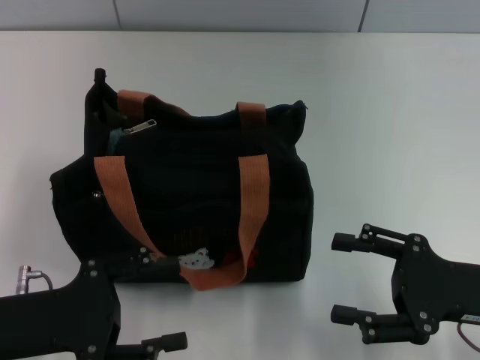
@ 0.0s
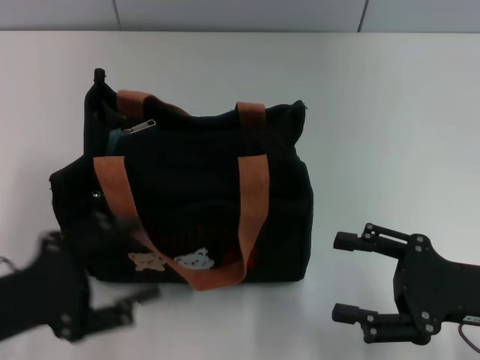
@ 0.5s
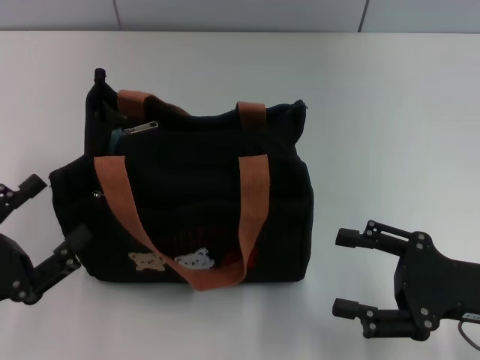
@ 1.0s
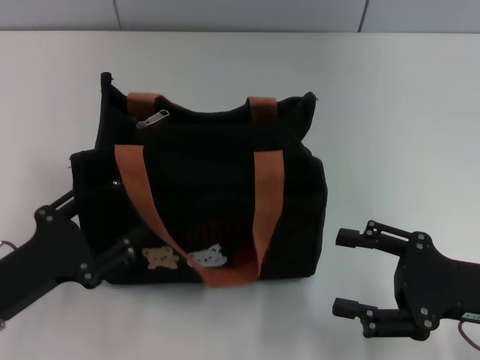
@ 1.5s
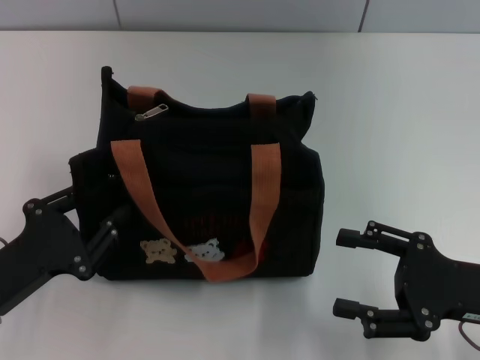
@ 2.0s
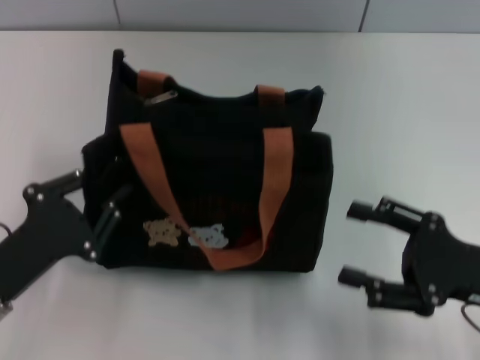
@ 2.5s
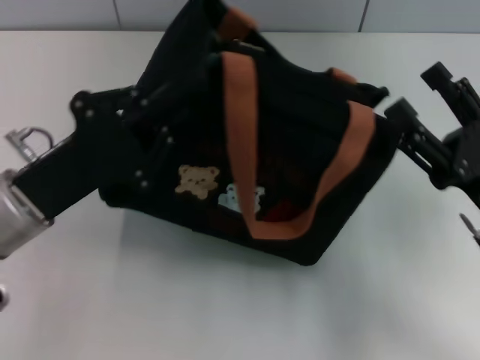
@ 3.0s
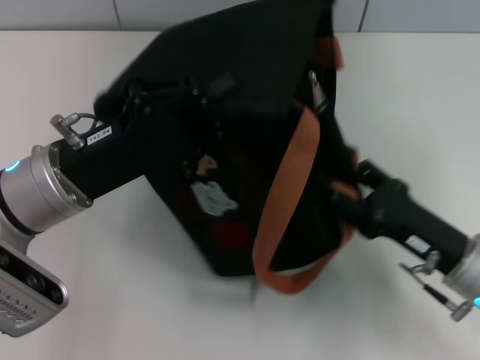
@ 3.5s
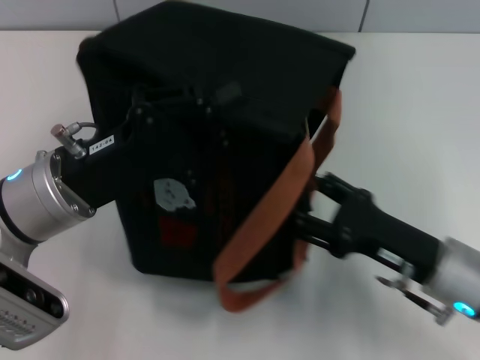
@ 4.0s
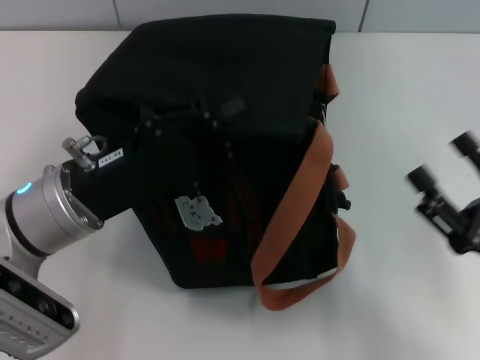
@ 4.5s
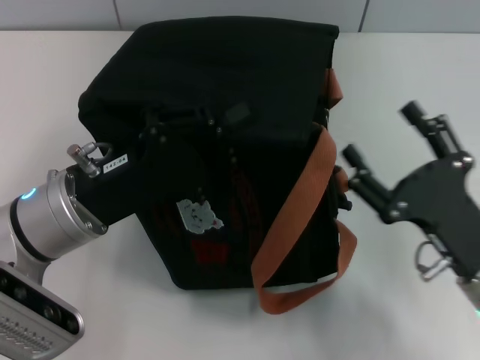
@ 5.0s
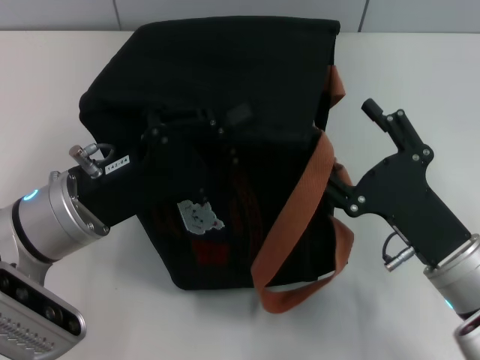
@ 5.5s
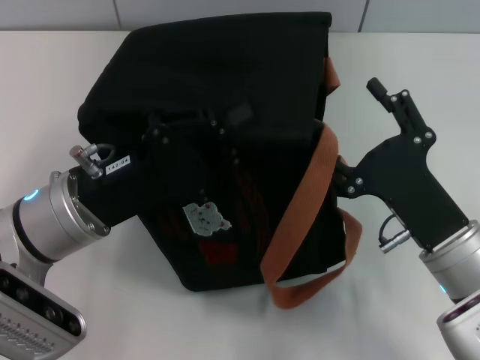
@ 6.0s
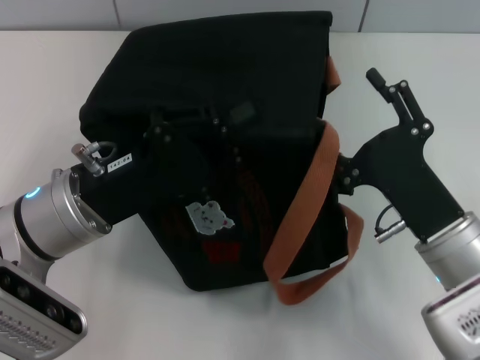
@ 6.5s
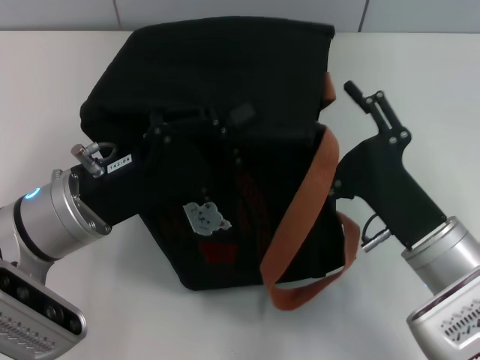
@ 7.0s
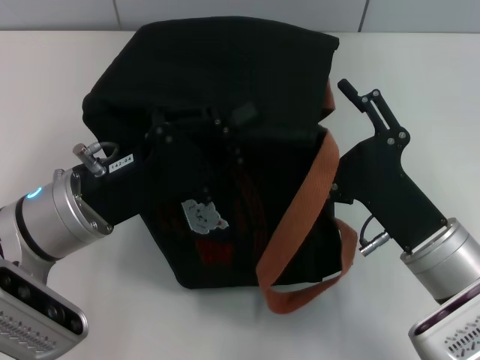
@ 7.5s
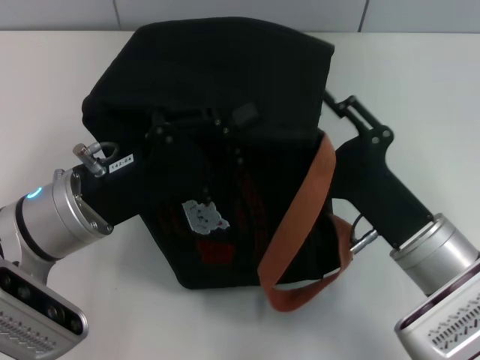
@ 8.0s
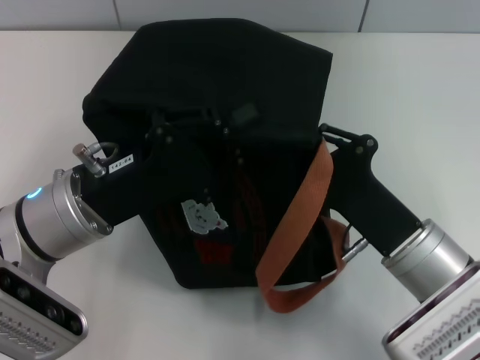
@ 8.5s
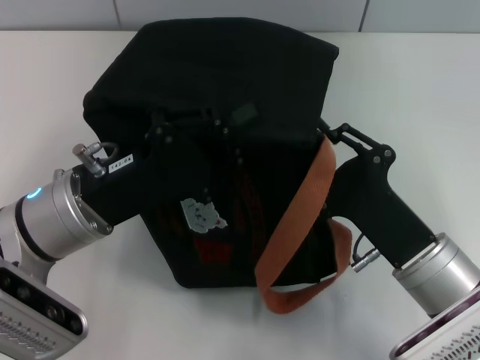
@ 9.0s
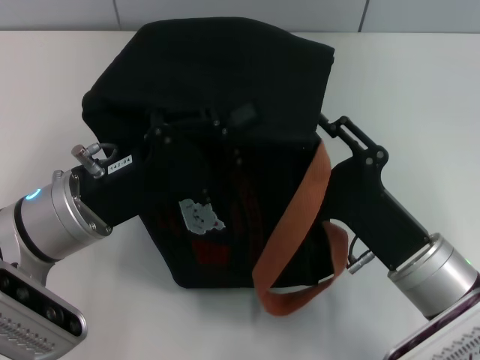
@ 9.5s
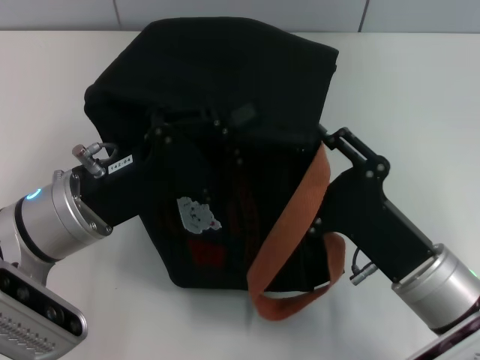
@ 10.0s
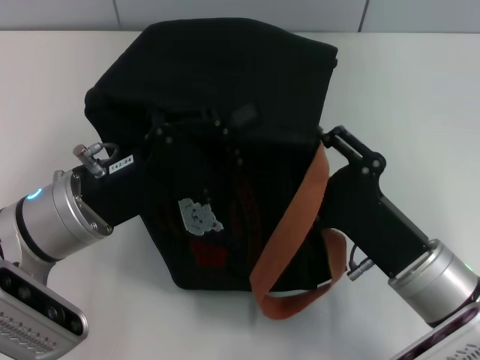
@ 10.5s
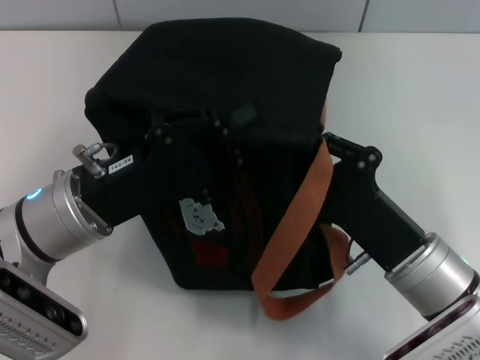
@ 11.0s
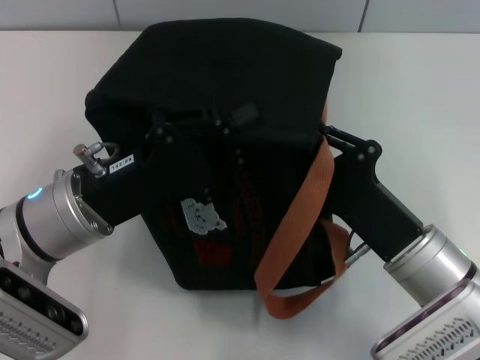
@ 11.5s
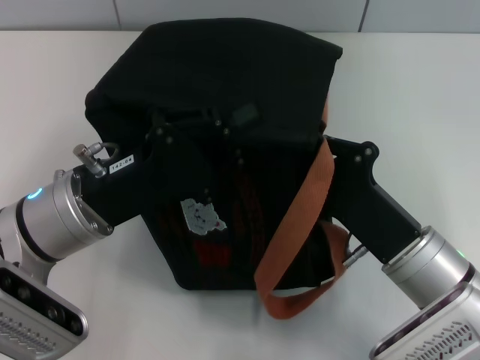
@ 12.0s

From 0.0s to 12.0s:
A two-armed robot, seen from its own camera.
From 0.0s to 2.0s: The left gripper closes up.
From 2.0s to 4.0s: The right gripper moves to the left, about 5 cm. Meanwhile the left gripper heads forward, to the right and upward, covering some 15 cm, and closes up.
From 4.0s to 6.0s: The right gripper reaches roughly 5 cm to the right, then returns.
From 6.0s to 8.0s: The grippers move only a little.
From 8.0s to 10.0s: The right gripper closes and opens again.
From 10.0s to 12.0s: The right gripper closes up.

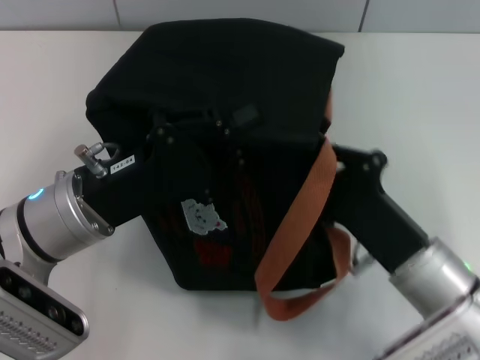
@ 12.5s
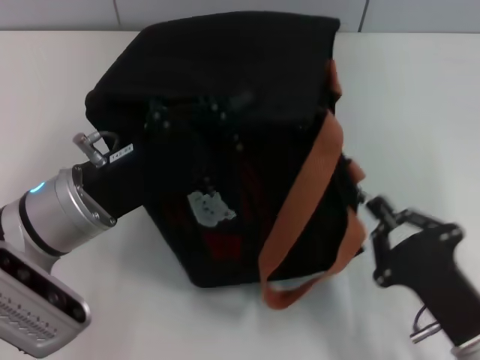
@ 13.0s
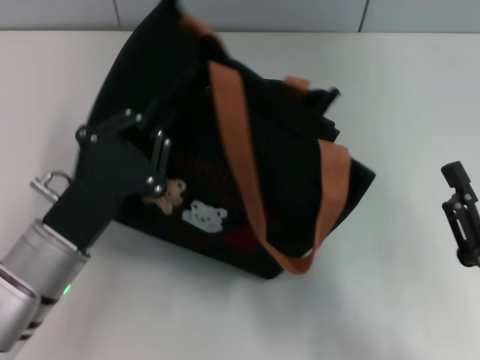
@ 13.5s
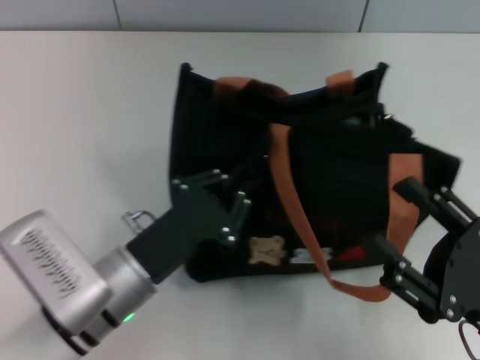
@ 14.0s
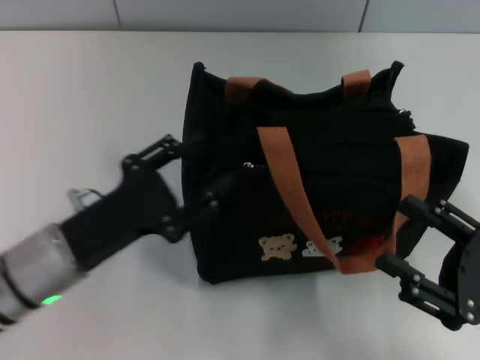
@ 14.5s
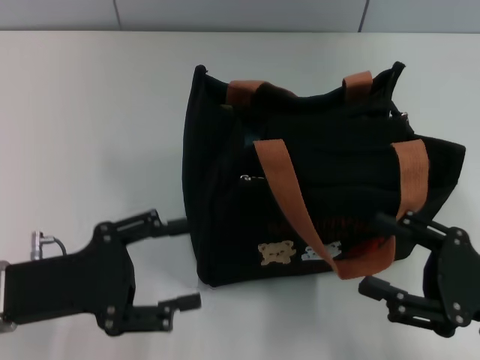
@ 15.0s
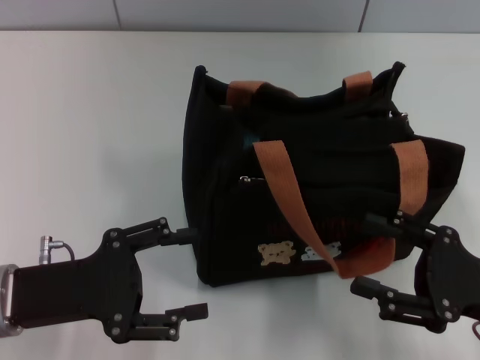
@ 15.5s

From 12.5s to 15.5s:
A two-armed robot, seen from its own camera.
Step, from 13.5s to 14.0s: Grab the bag with your left hand.
From 12.5s to 14.0s: The right gripper is displaced to the right and backward by about 10 cm, and opens; the left gripper heads downward, covering approximately 5 cm.
From 14.0s to 15.5s: The left gripper moves to the left, roughly 10 cm, and opens up, while the right gripper ends up some 5 cm from where it was.

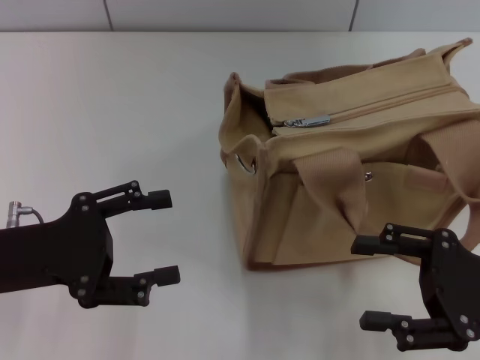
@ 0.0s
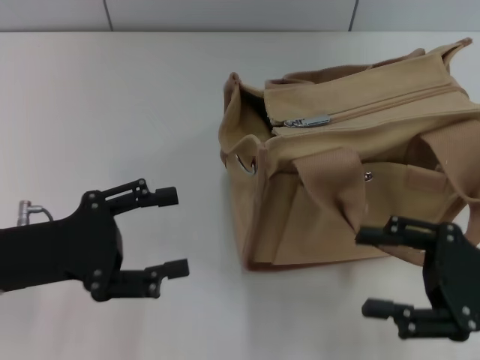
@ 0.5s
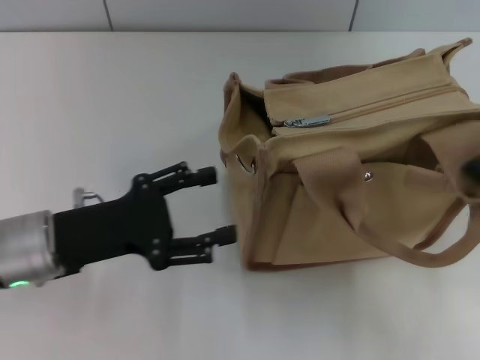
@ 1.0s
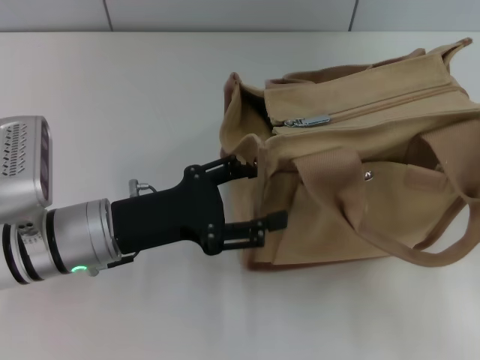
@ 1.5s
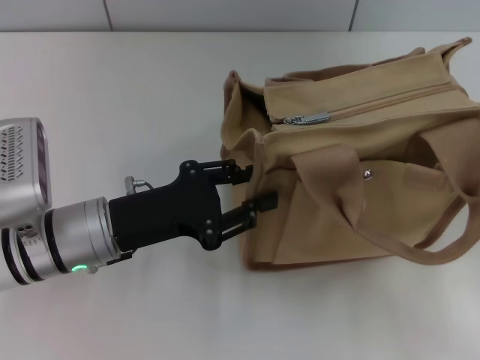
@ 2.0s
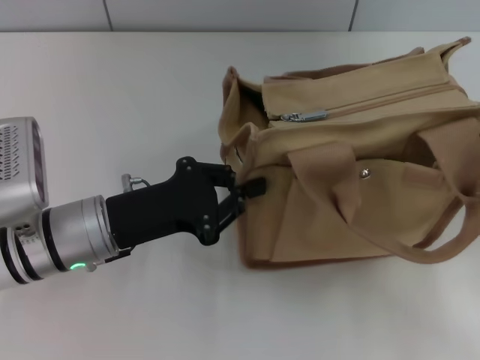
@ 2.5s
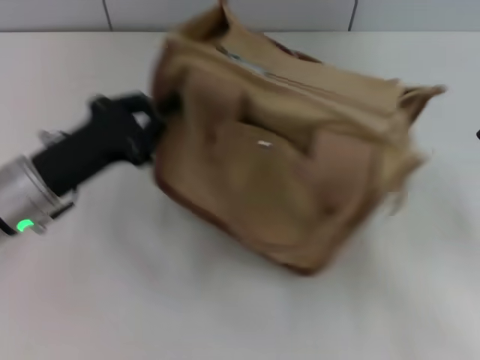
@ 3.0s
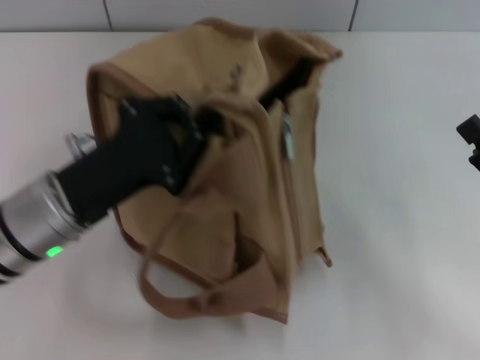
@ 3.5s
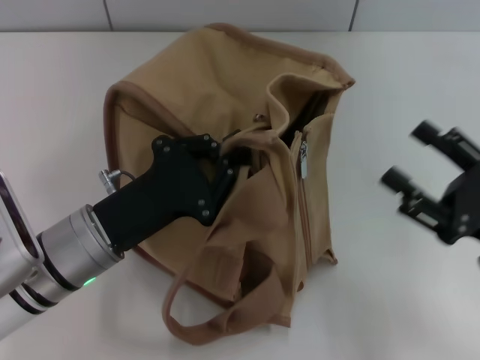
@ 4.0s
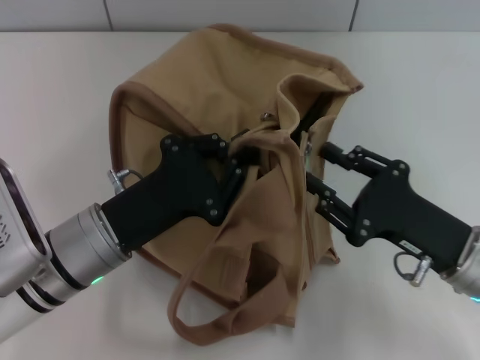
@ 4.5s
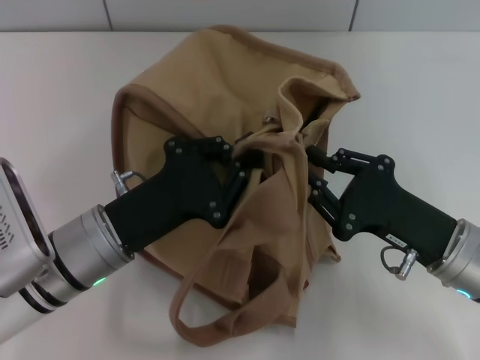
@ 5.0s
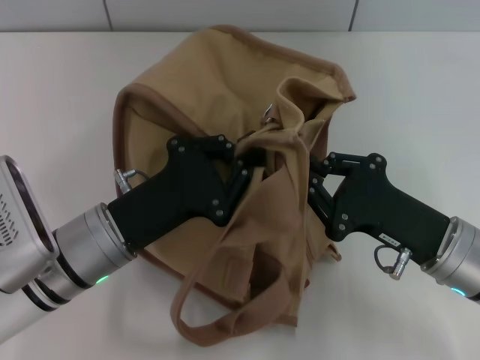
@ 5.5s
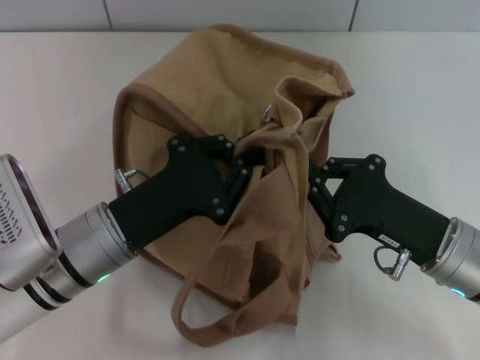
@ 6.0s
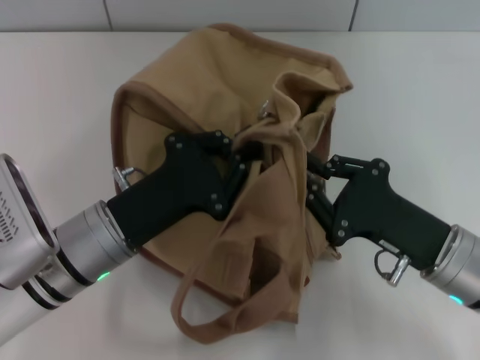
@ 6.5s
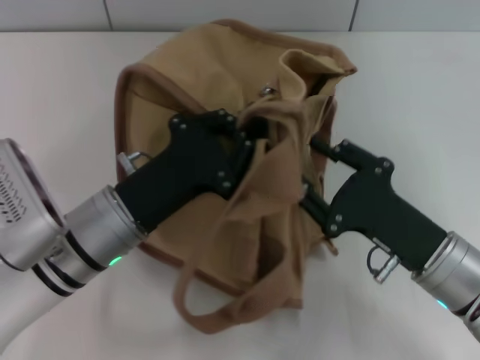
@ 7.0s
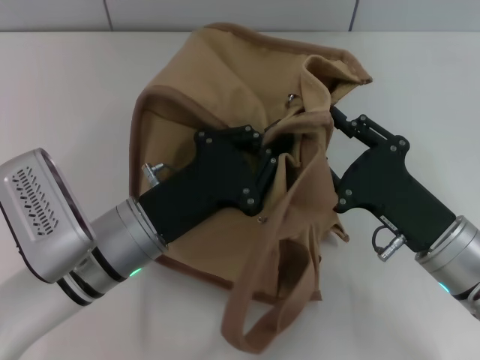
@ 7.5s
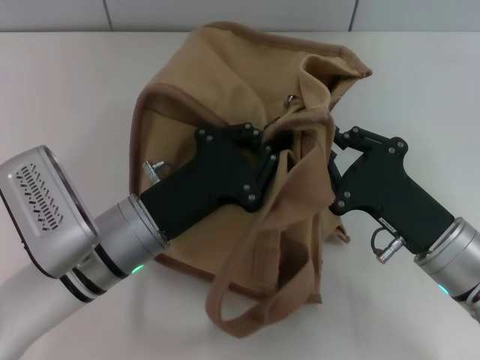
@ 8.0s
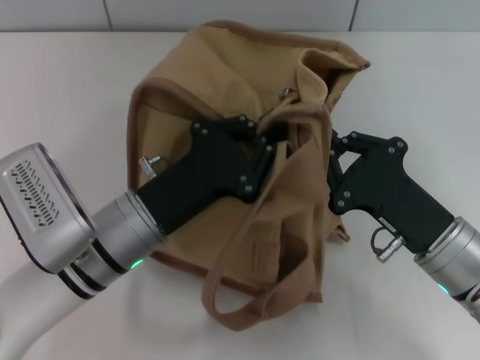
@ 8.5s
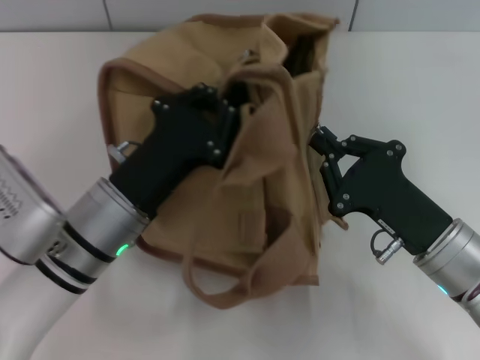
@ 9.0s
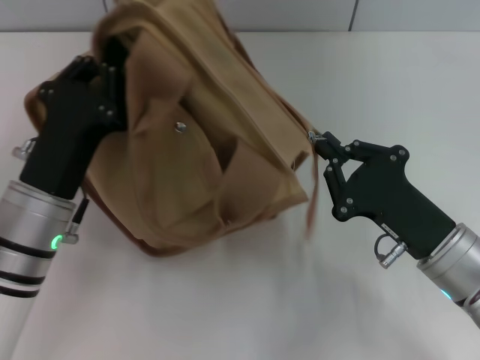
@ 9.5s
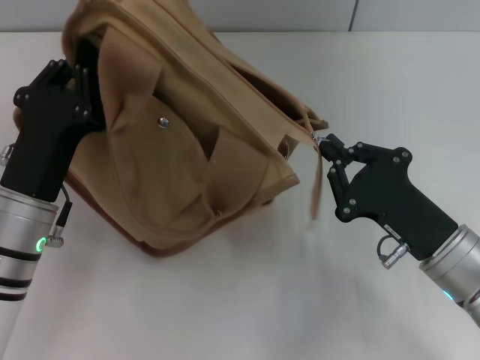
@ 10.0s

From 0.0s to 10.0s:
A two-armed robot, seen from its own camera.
From 0.0s to 2.0s: The left gripper travels to the right by roughly 10 cm.
From 2.0s to 4.0s: The left gripper closes its fingers.
From 4.0s to 6.0s: The right gripper travels to the left by about 10 cm, and closes.
From 6.0s to 8.0s: The right gripper opens.
From 8.0s to 10.0s: The left gripper travels to the left by some 5 cm. The right gripper closes.
